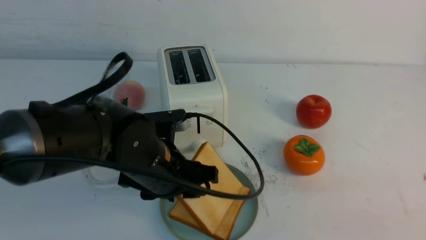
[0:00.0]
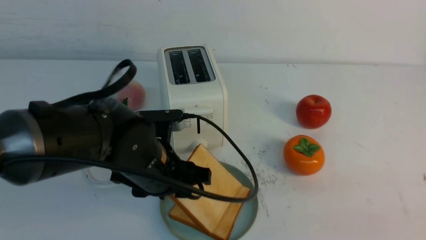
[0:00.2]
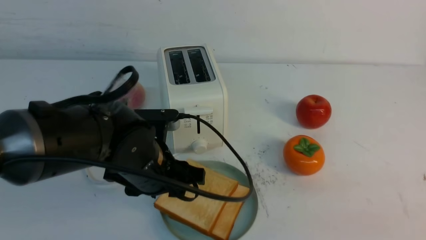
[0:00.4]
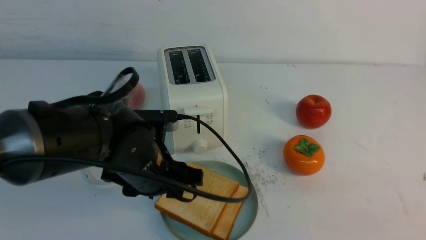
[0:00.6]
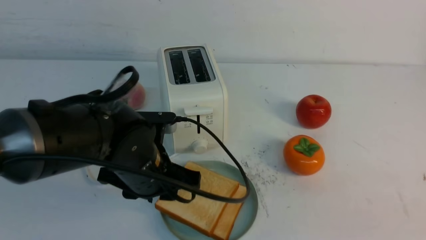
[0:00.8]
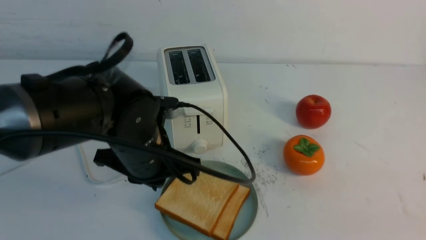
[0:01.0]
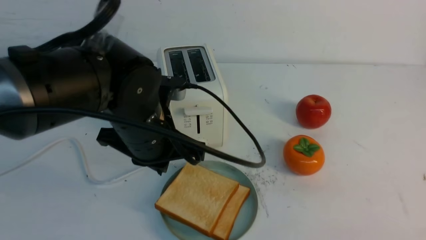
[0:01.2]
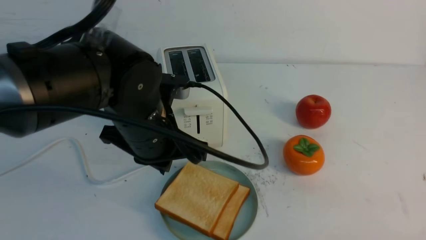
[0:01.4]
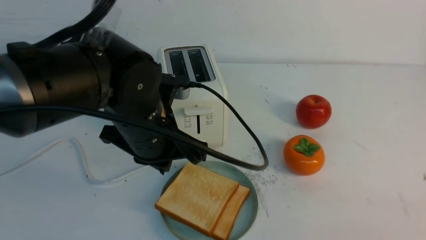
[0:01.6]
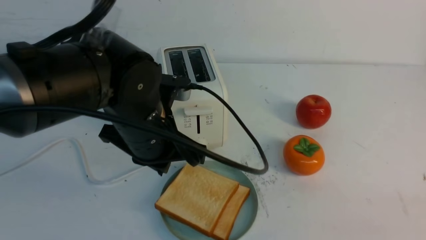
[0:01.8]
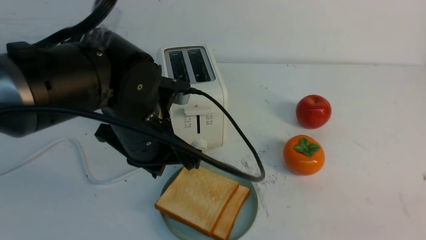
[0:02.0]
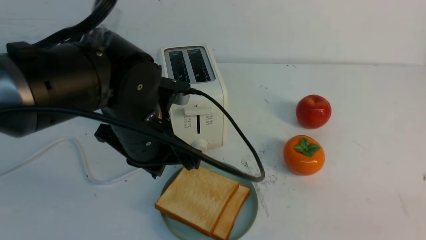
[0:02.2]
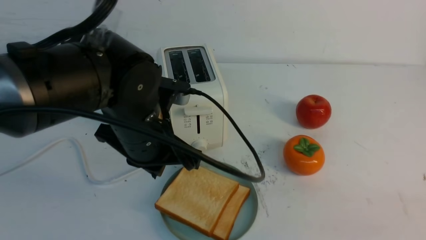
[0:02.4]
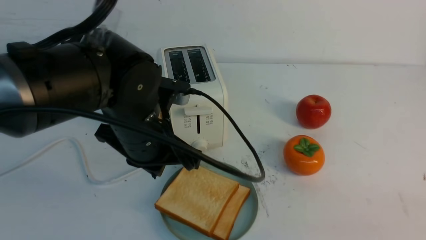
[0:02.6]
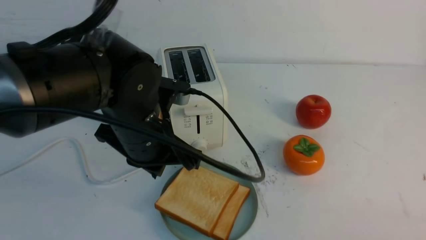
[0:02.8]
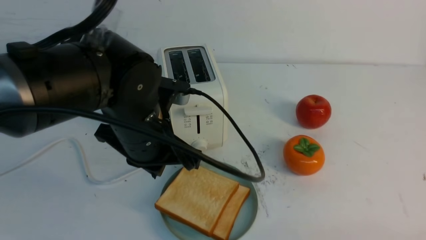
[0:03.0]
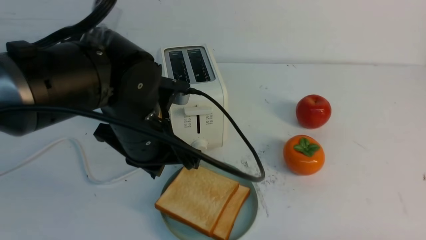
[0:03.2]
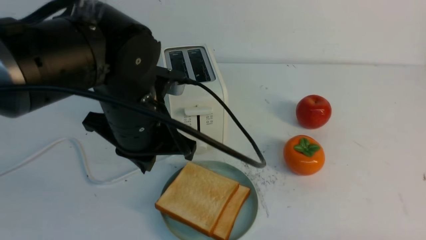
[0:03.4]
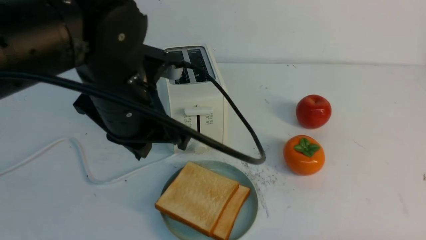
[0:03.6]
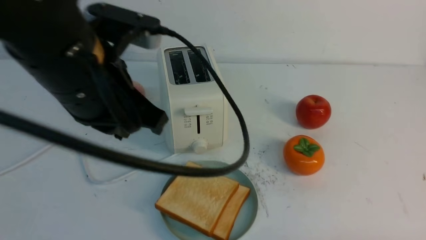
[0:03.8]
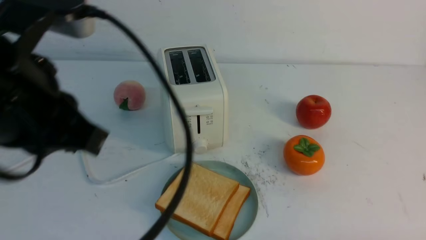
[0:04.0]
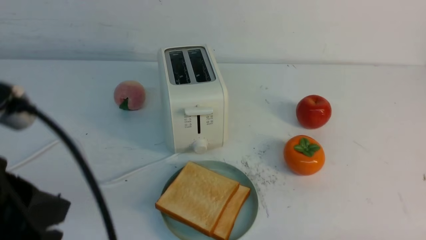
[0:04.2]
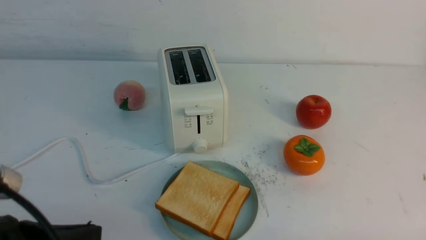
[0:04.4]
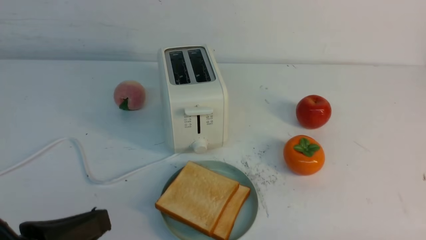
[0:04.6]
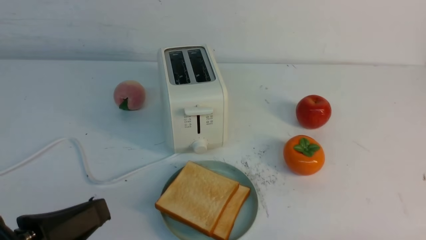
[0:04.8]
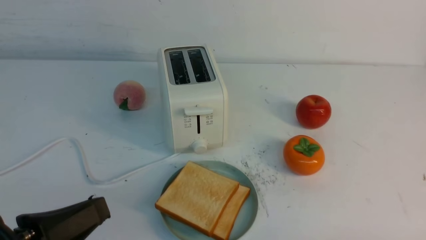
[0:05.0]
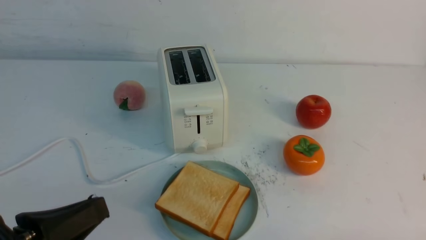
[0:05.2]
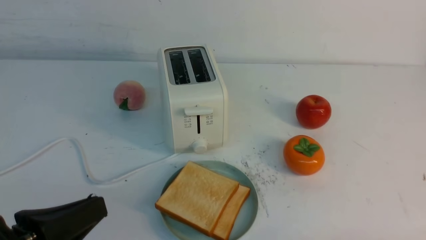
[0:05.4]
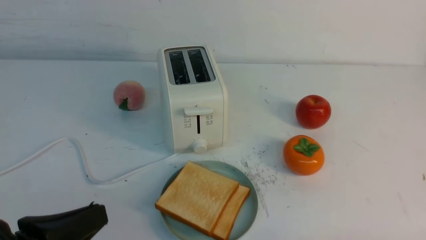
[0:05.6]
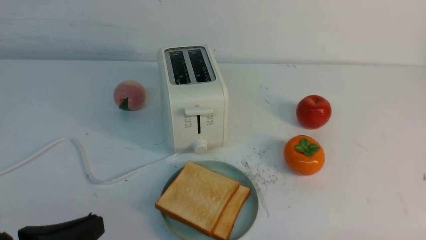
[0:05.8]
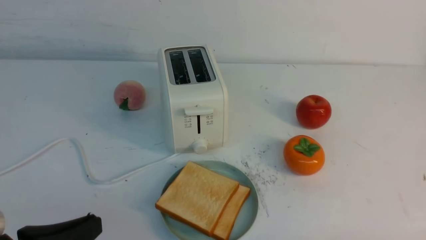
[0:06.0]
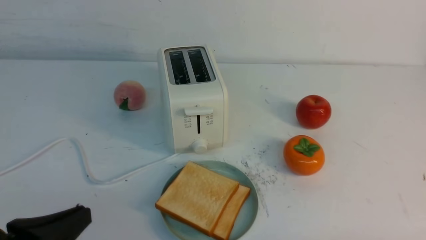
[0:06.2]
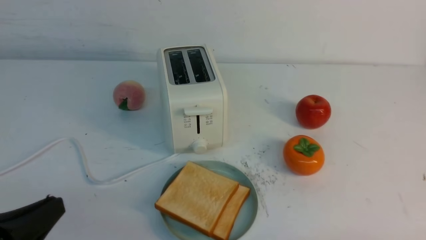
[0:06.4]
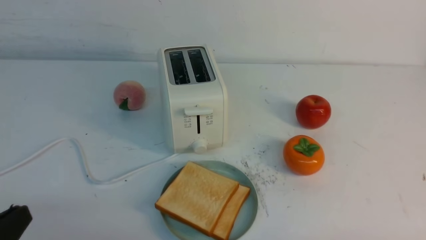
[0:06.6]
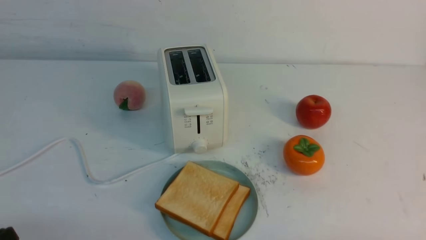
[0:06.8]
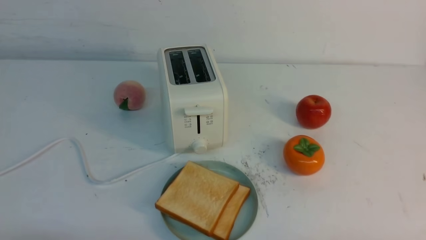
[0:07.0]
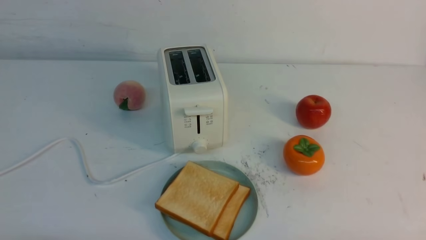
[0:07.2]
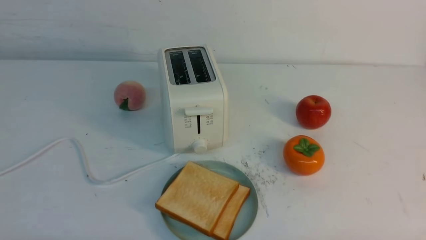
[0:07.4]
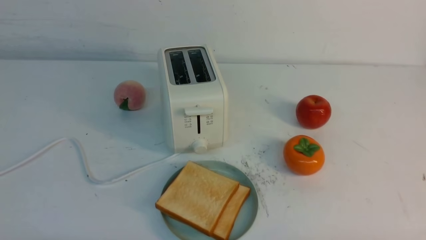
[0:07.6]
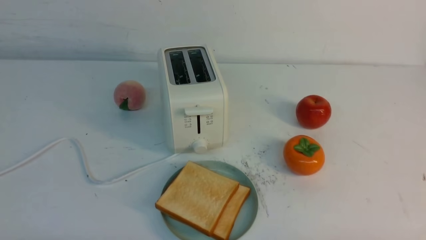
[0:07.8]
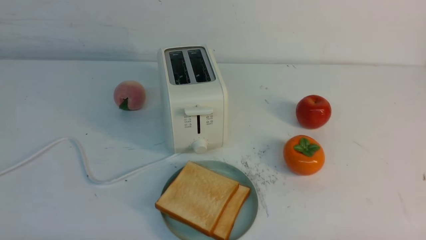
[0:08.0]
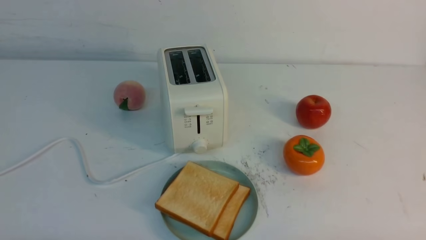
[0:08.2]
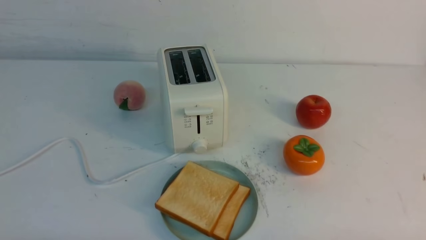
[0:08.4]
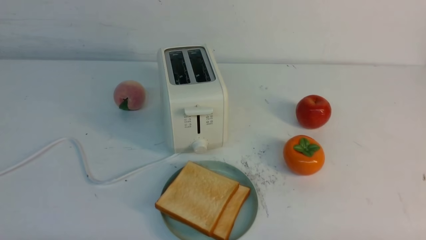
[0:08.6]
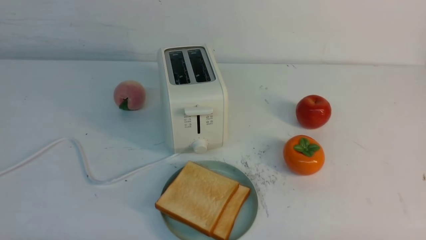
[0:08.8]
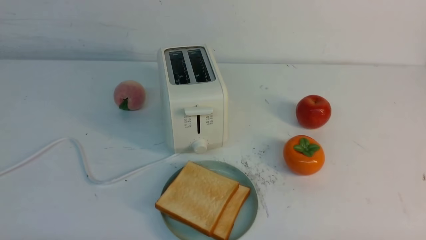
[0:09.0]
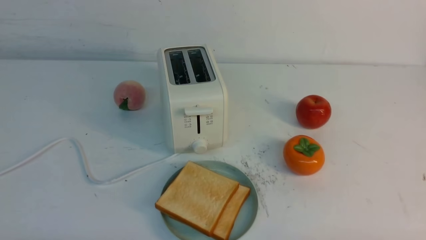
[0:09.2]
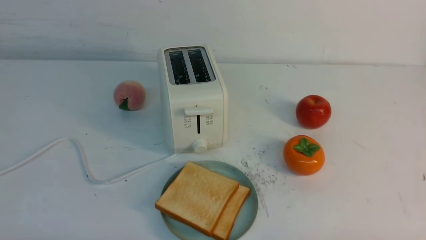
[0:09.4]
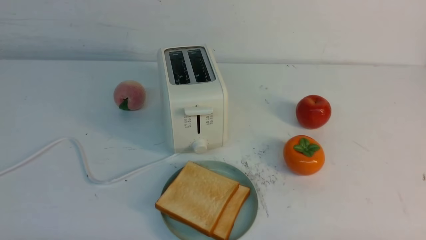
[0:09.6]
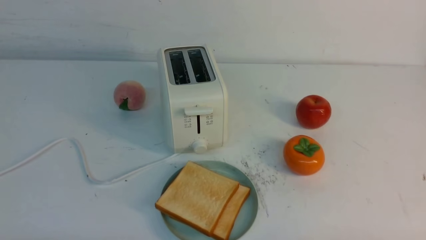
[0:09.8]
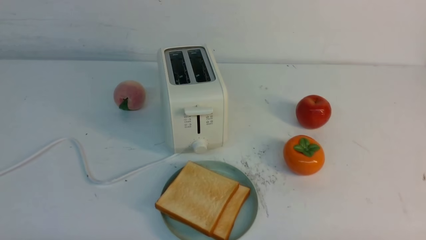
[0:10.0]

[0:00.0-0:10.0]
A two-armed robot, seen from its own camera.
Task of the whole recording: take toasted bread from bread machine on white table place on plate.
0:00.0 to 0:01.4: The left gripper travels upward by approximately 5 cm, and closes, while the right gripper closes.
0:01.4 to 0:02.8: The right gripper goes approximately 5 cm downward.
0:02.8 to 0:04.2: The left gripper goes approximately 20 cm backward and to the left. Meanwhile the right gripper is displaced downward by about 5 cm.
0:04.2 to 0:05.8: The left gripper is displaced downward by roughly 10 cm.
0:05.8 to 0:07.2: The left gripper heads downward and to the left, covering some 10 cm.
0:07.2 to 0:10.0: Neither gripper changes place.
